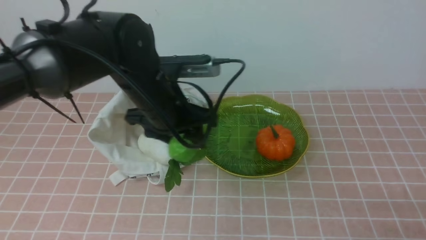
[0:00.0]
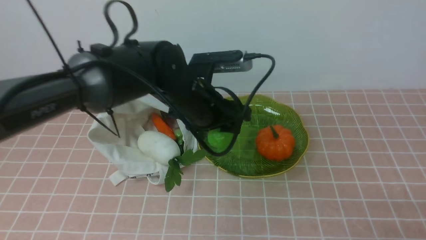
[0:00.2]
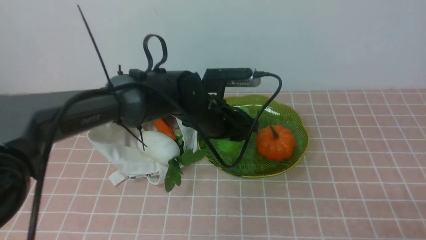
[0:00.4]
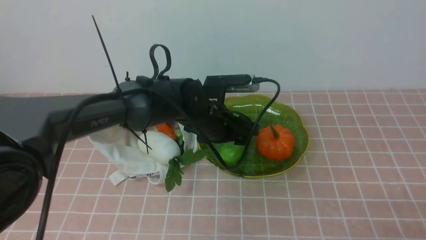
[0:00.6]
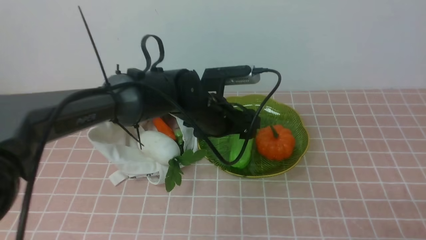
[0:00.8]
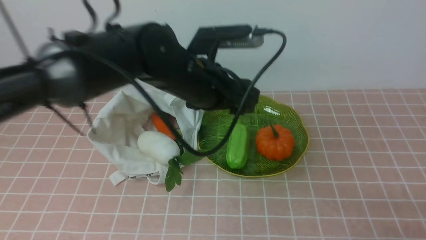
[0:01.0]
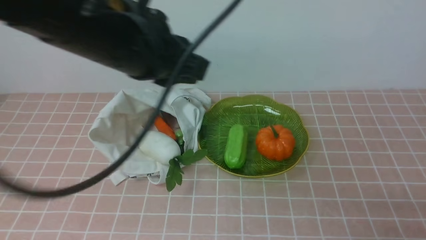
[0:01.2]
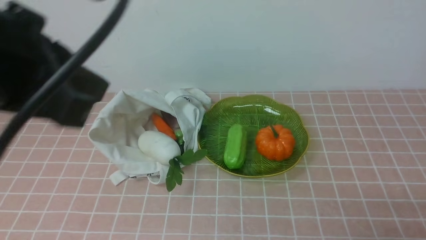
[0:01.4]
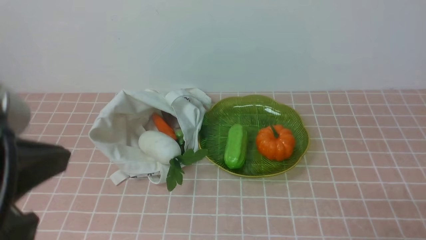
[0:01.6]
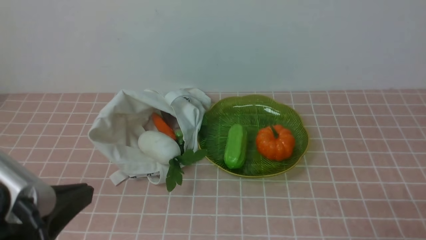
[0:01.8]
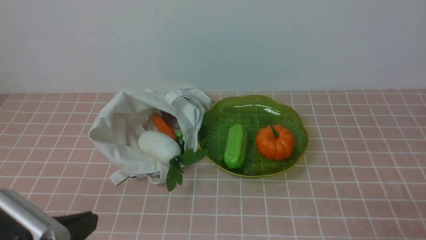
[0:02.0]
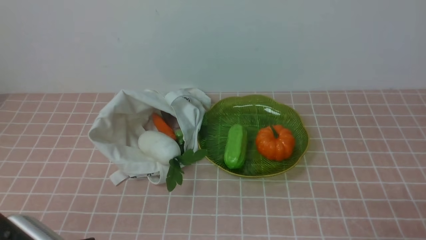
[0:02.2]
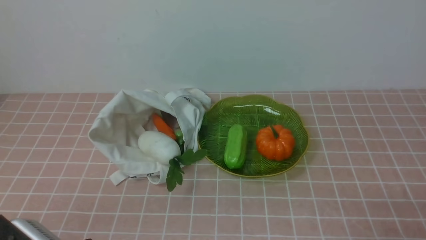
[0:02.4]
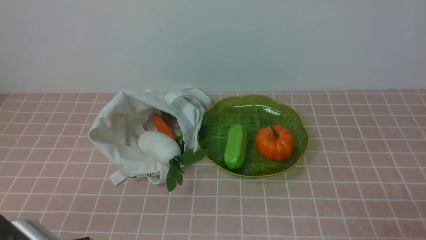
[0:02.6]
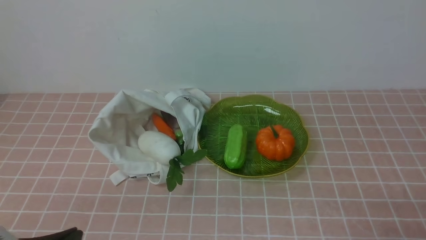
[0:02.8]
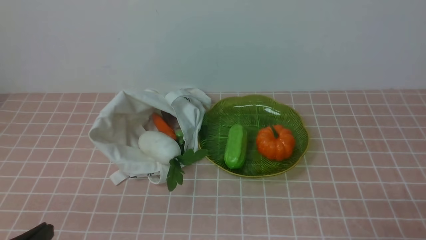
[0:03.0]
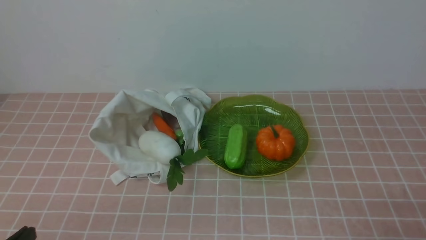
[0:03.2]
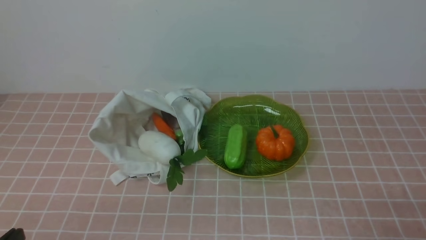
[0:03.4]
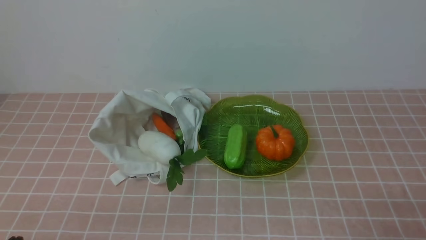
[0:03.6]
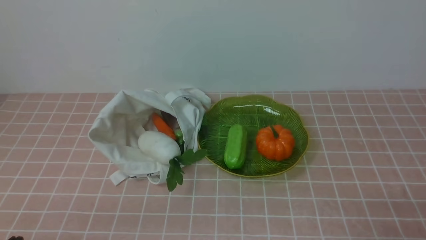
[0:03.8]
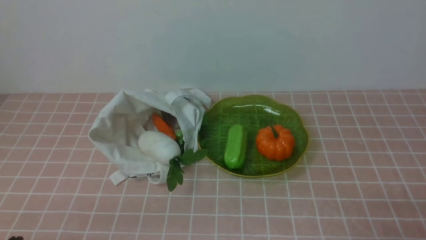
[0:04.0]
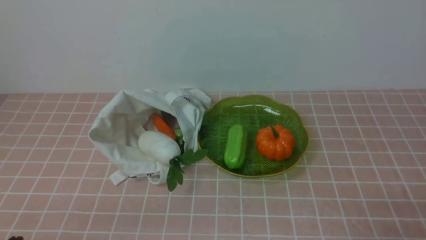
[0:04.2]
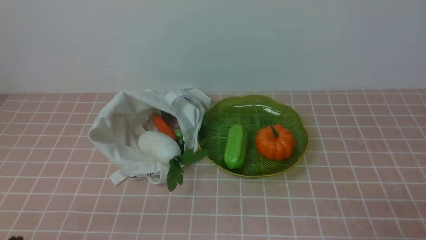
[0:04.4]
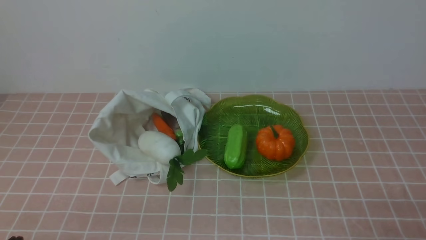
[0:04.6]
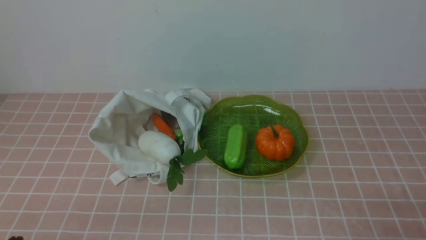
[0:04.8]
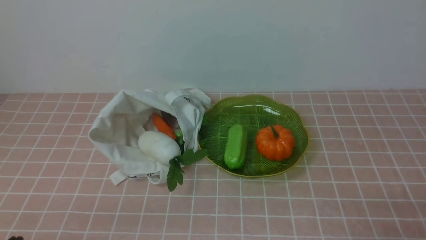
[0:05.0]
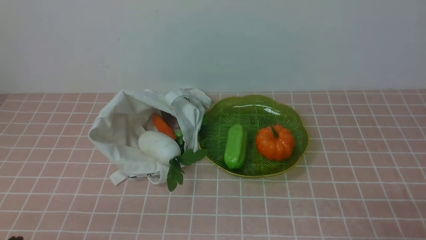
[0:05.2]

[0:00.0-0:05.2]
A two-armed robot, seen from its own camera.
Task of the whole recording: take vegetables from bag on pink coffee tablecloth place on plate.
Step, 0:00.0 to 0:01.0: Place the bitter melon on the plate with left gripper.
0:00.0 to 0:01.8: The left gripper moves backward and to the left, roughly 25 cm, and closes its fingers.
0:01.8 to 0:03.4: The left gripper moves downward, roughly 15 cm.

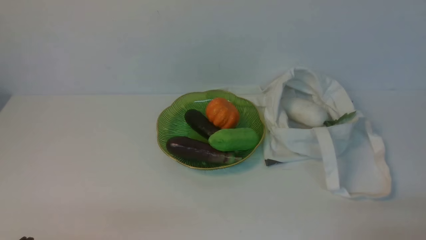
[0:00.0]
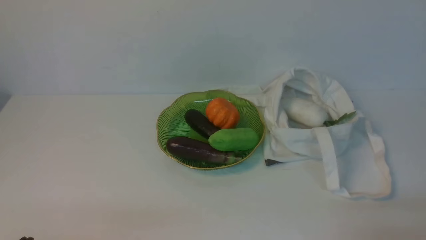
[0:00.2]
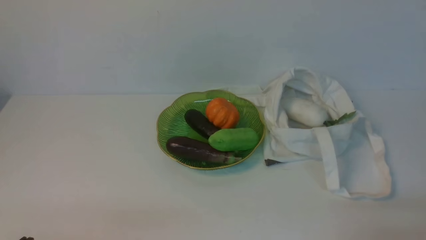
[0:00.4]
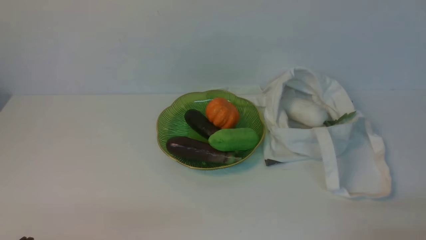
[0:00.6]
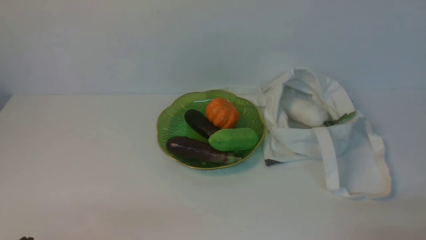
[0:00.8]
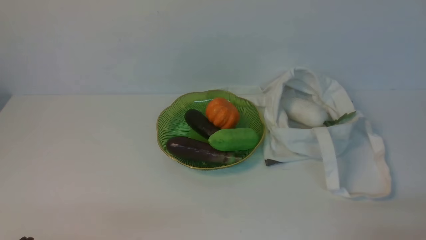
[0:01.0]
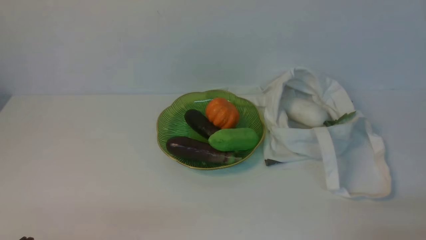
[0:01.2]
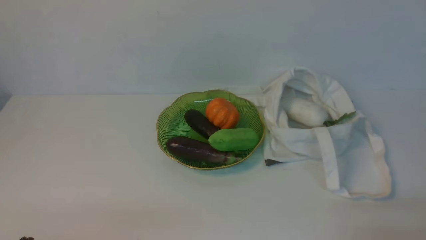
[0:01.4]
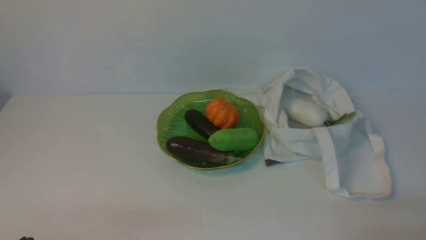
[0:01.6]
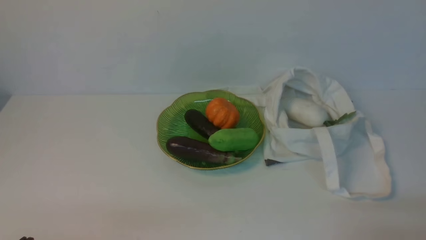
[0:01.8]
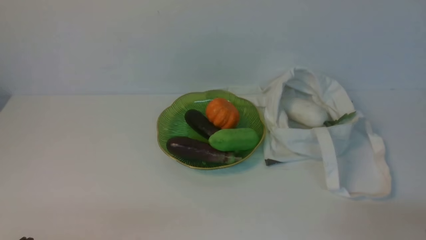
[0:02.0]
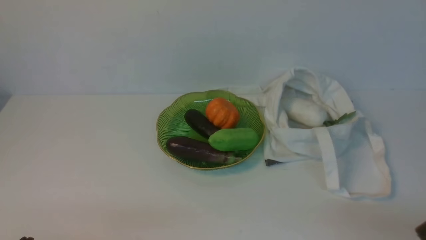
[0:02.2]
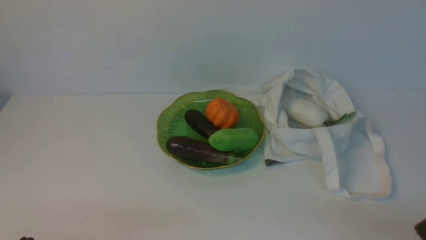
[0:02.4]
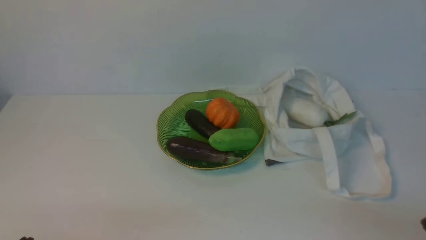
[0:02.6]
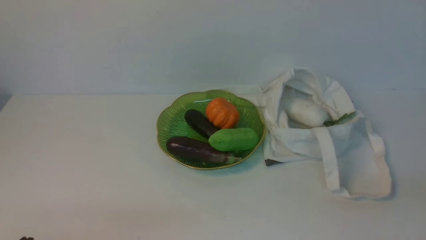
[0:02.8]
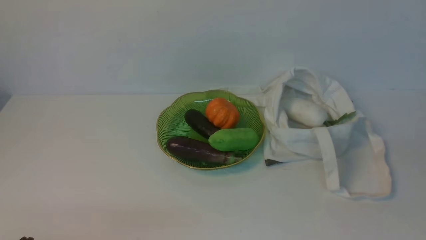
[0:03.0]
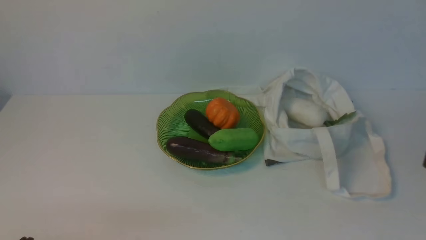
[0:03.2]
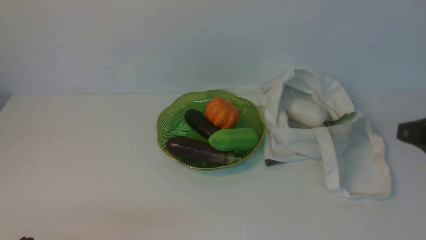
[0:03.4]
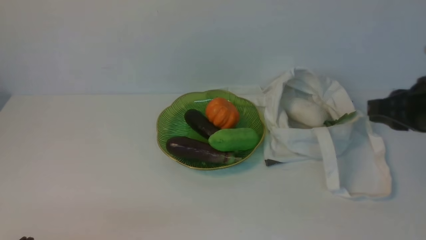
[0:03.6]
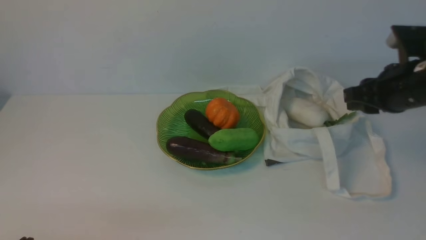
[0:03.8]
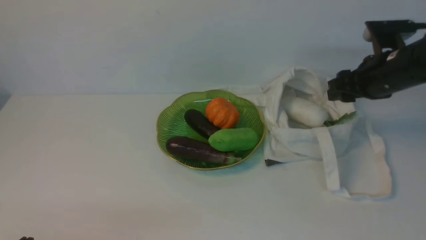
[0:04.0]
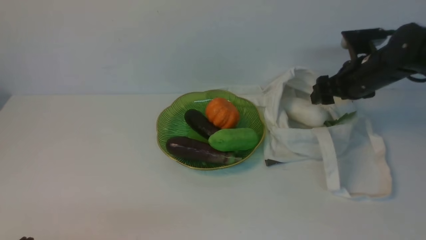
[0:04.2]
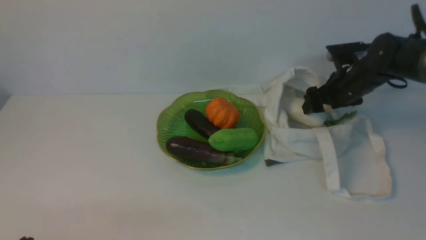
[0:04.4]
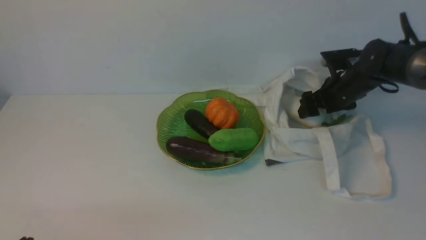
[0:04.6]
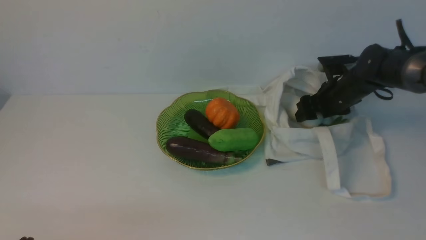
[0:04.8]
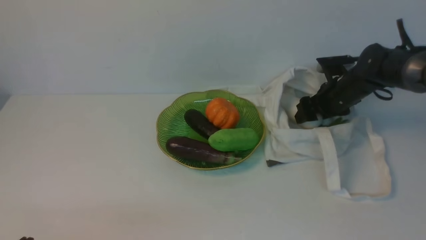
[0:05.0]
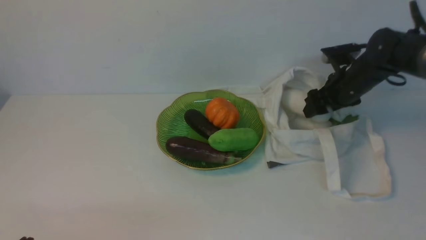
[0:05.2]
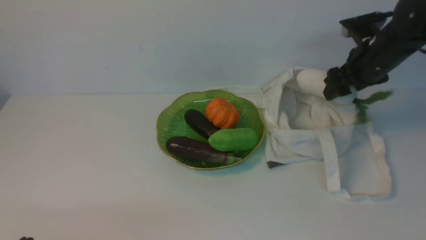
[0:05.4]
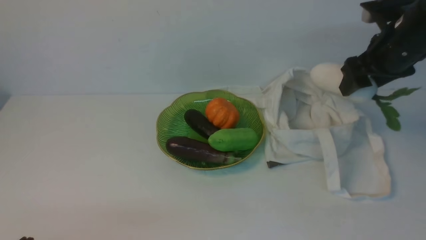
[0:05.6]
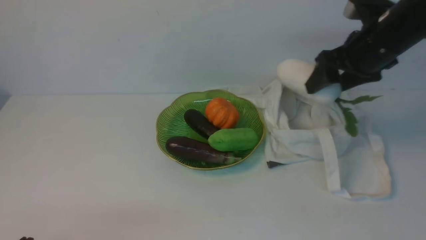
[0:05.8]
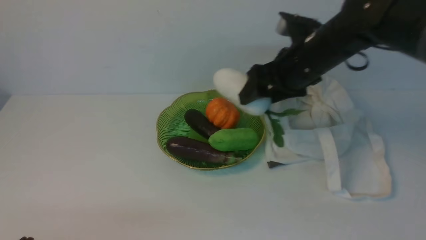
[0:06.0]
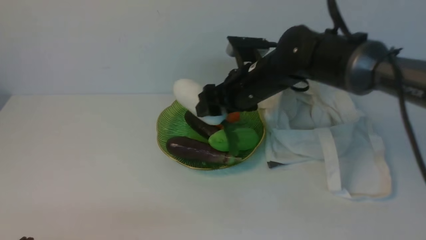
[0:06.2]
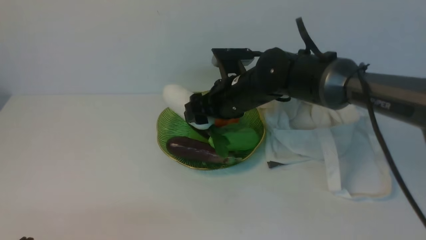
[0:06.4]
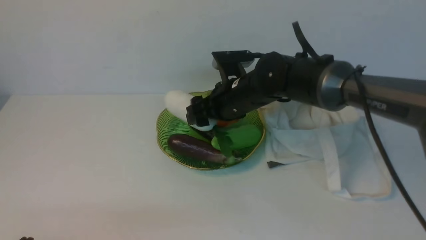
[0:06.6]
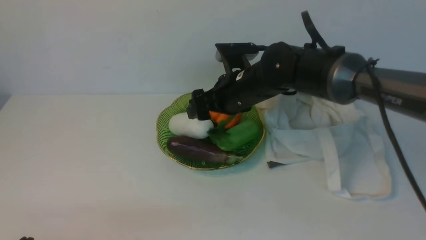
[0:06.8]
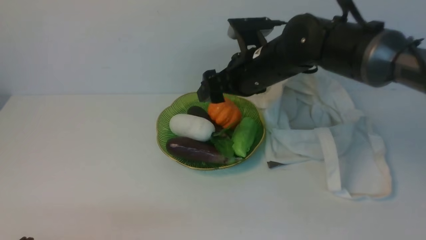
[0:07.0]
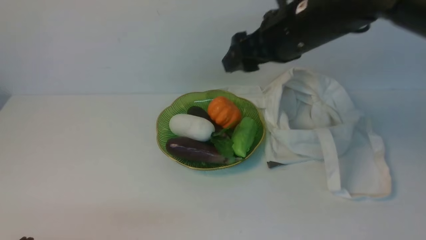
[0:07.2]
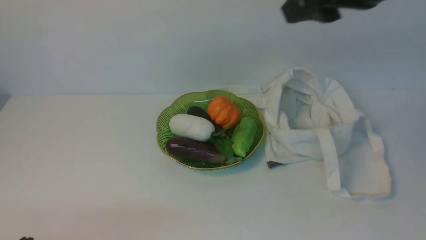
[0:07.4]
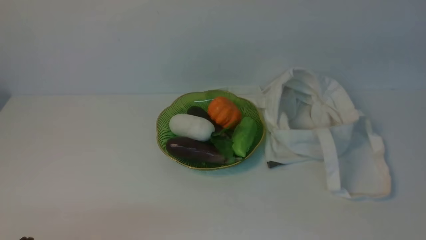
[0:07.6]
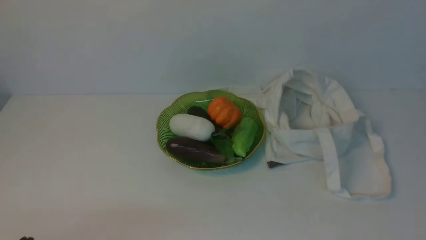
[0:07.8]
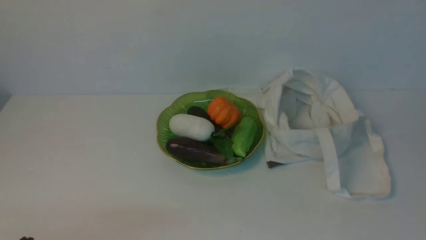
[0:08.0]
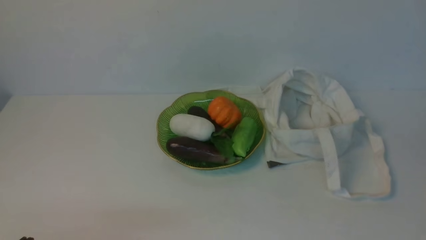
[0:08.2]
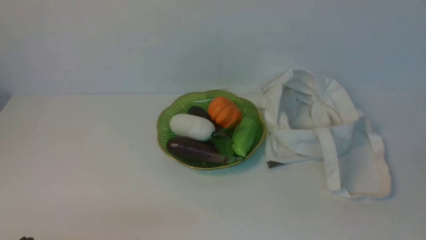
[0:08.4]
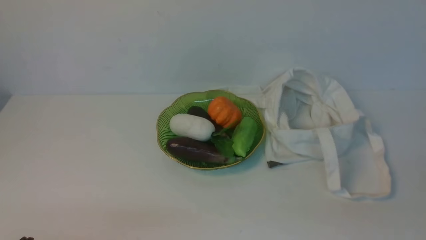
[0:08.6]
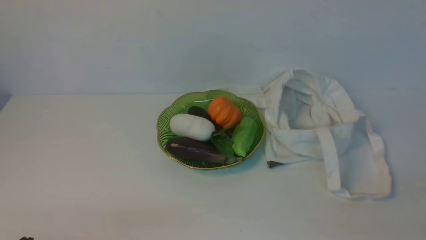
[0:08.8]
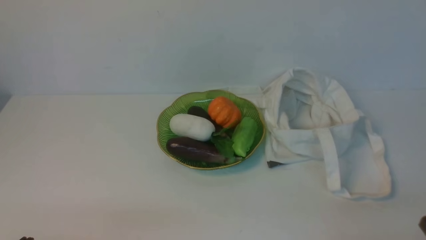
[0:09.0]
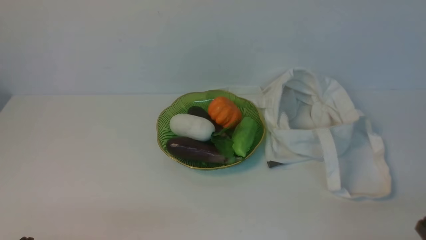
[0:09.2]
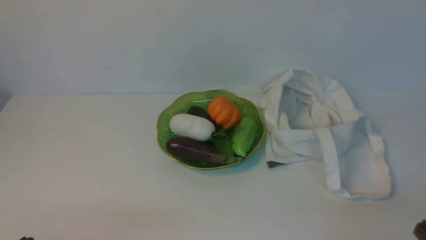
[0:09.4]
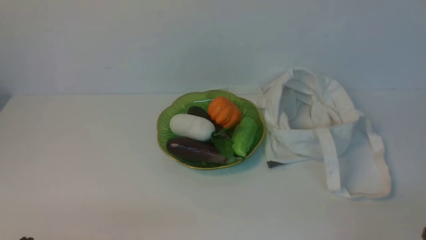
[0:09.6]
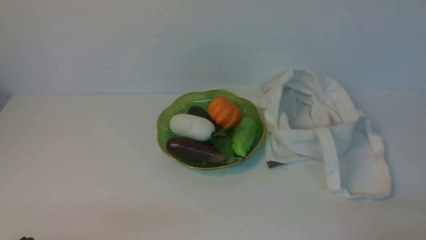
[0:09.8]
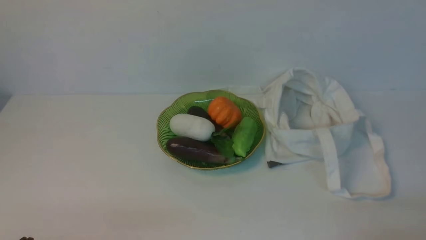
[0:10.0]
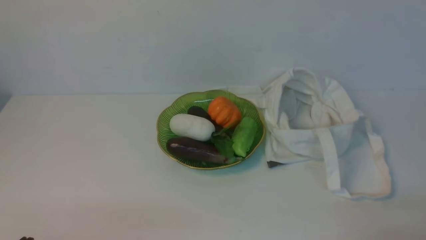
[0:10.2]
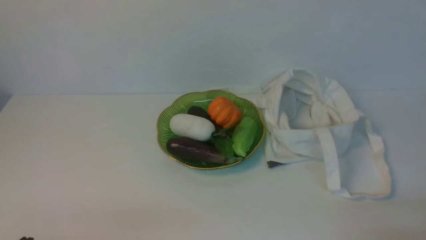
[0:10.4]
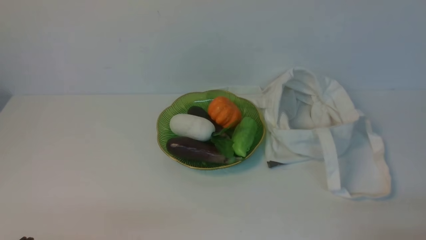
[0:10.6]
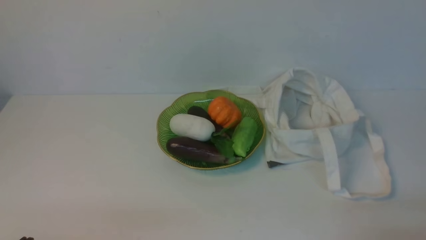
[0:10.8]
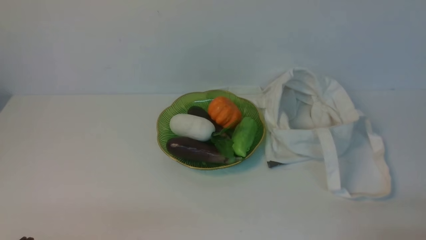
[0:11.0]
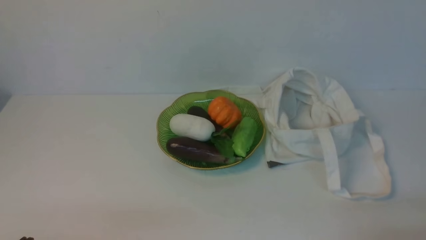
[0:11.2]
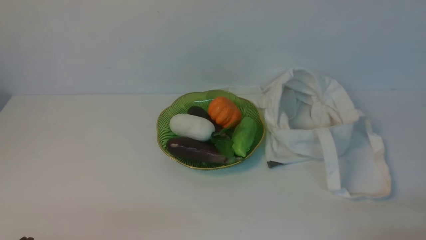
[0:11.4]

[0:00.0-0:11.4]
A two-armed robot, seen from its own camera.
Task of the whole recording: take vegetables from cloth bag on white table place on plate.
Step, 0:00.0 to 0:05.0: Grasp the radish with right gripper.
Step, 0:05.2 to 0:06.8: Place the radish on the plate with right gripper.
0:00.0 to 0:01.4: Both grippers stay about where they are.
0:02.8 to 0:04.2: The right gripper is displaced forward by approximately 35 cm, and opens its fingers.
0:04.2 to 0:05.6: The right gripper travels upward by about 10 cm.
0:05.6 to 0:07.2: The right gripper moves to the left, upward and backward, about 15 cm.
0:07.2 to 0:08.6: The right gripper heads backward, to the right and downward, covering about 35 cm, and closes its fingers.
0:10.0 to 0:11.4: Both grippers stay about where they are.
